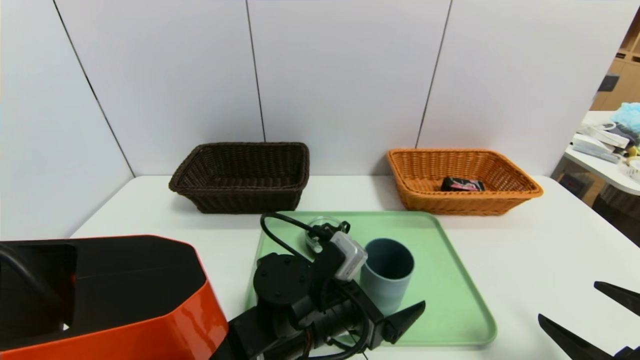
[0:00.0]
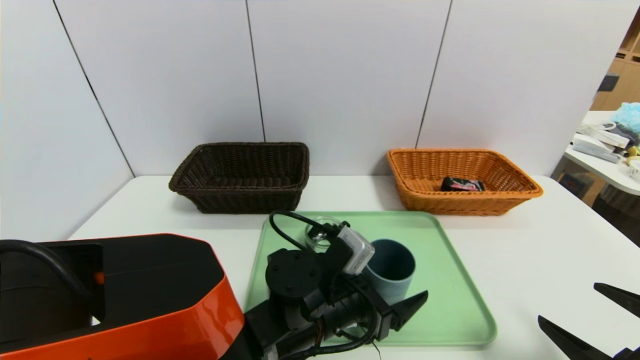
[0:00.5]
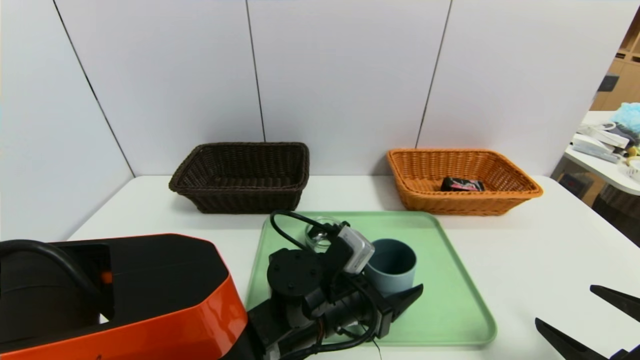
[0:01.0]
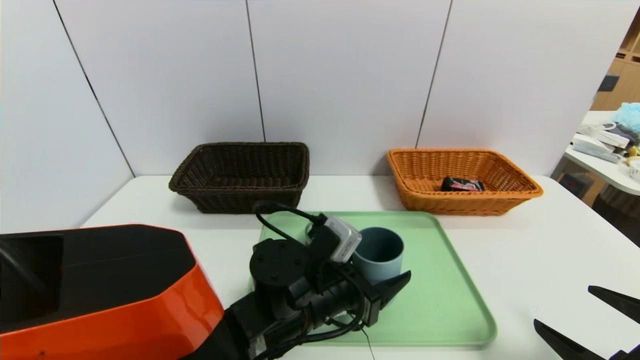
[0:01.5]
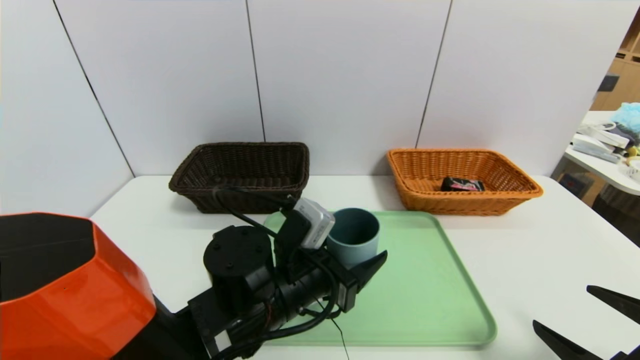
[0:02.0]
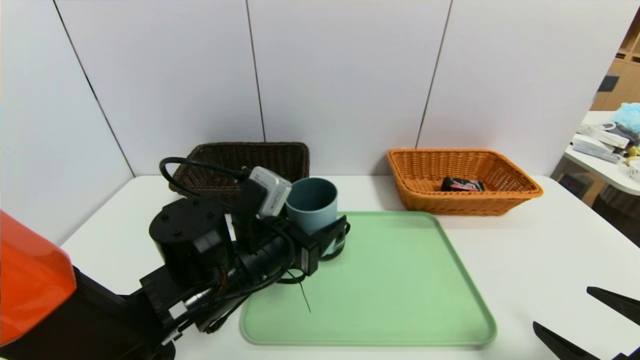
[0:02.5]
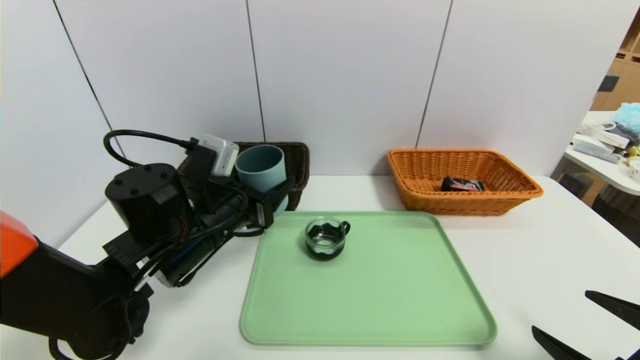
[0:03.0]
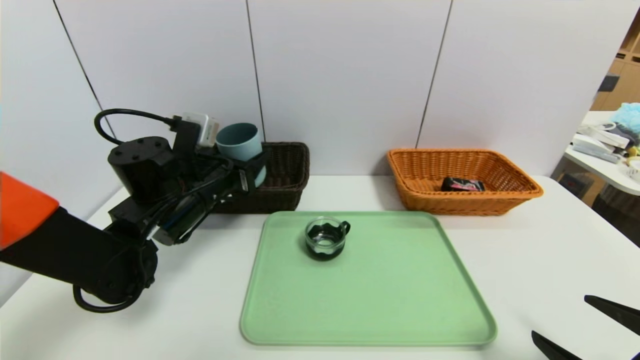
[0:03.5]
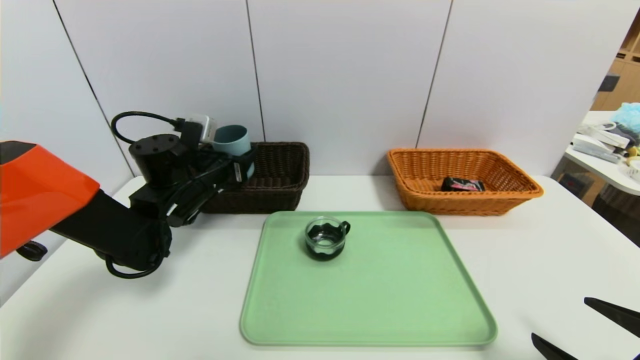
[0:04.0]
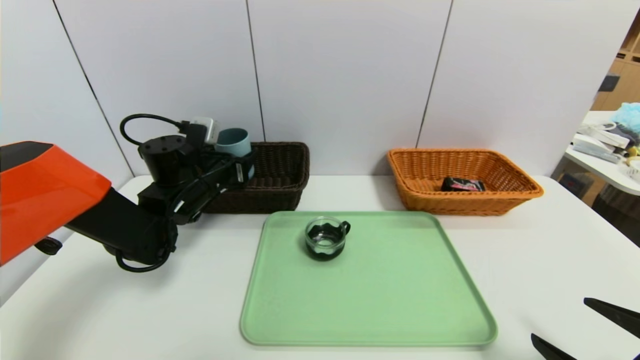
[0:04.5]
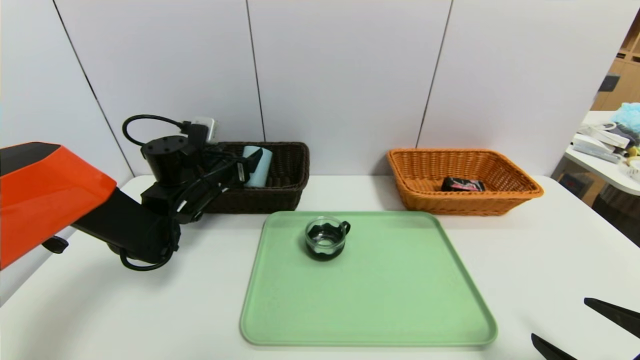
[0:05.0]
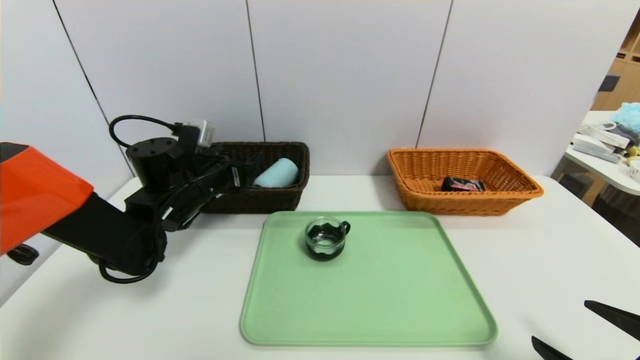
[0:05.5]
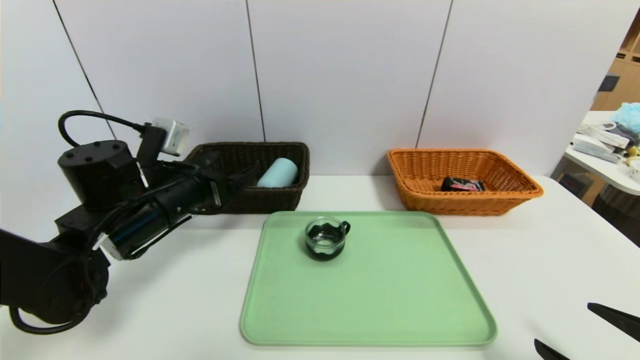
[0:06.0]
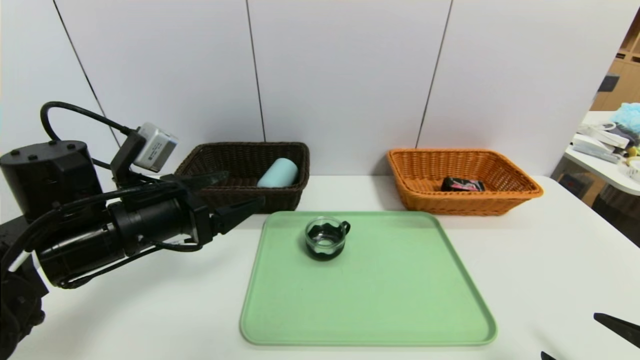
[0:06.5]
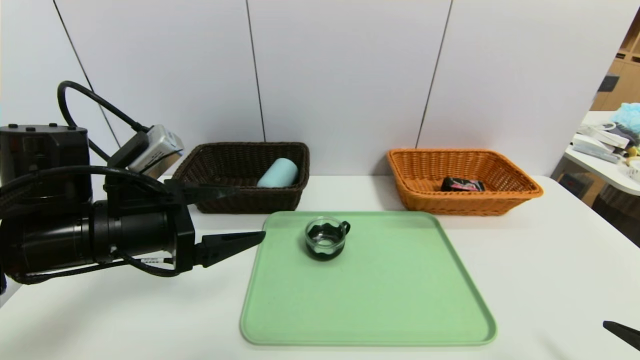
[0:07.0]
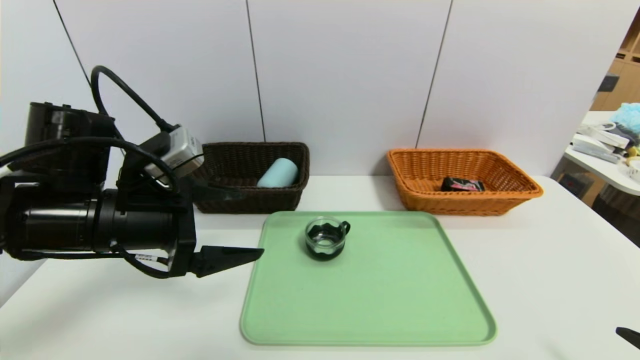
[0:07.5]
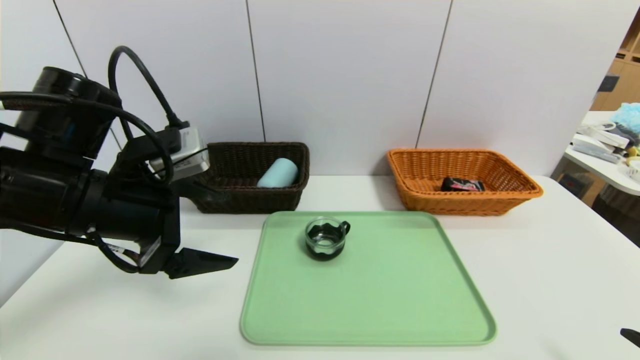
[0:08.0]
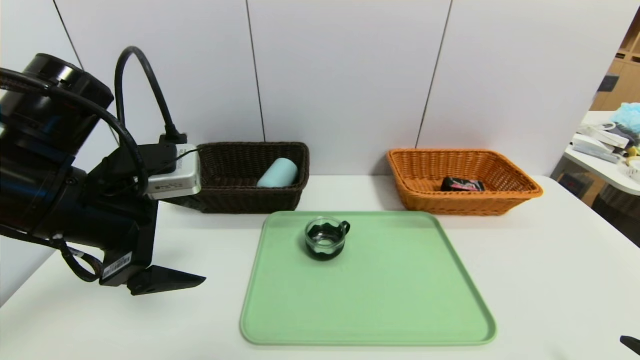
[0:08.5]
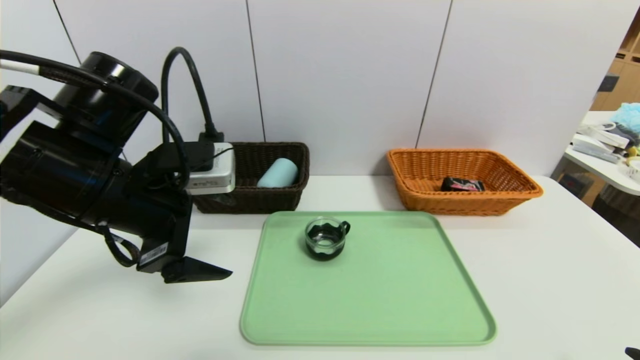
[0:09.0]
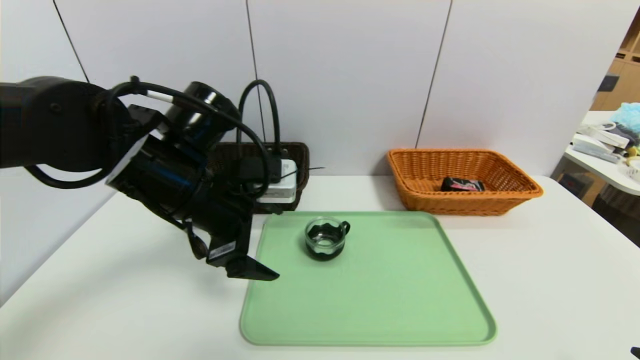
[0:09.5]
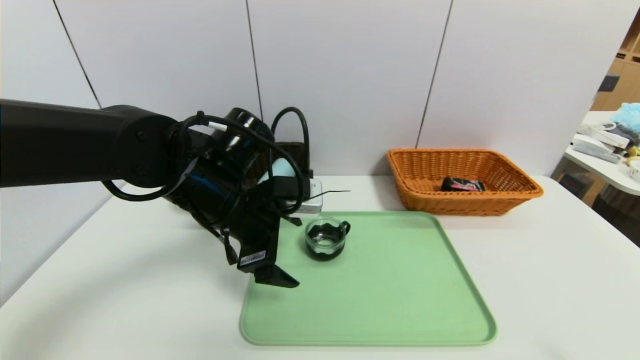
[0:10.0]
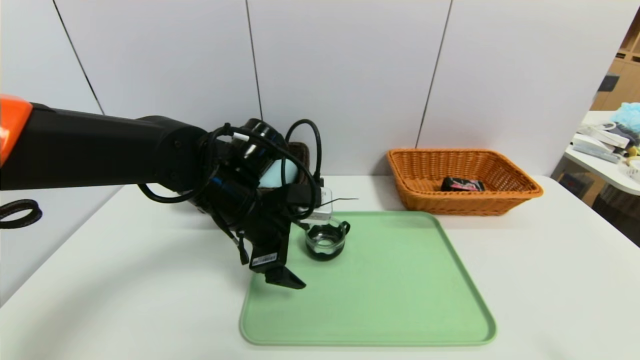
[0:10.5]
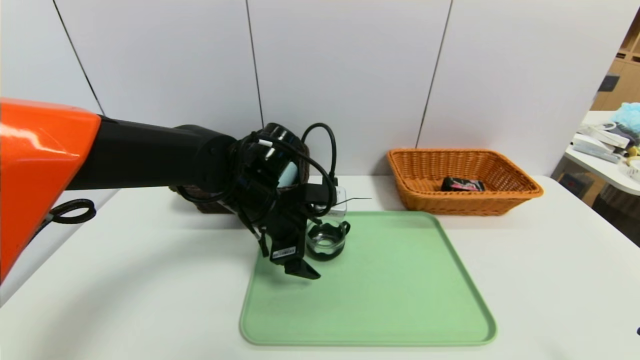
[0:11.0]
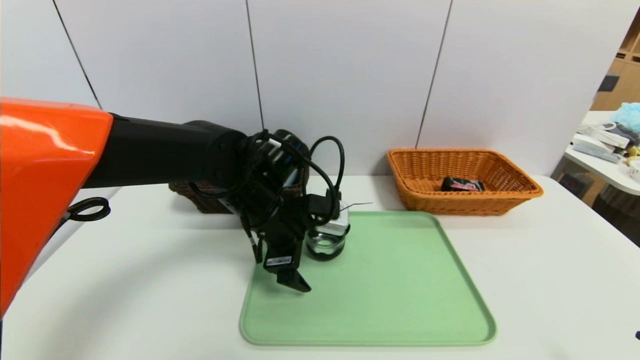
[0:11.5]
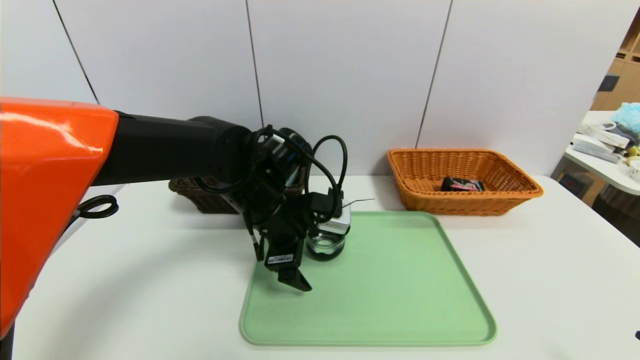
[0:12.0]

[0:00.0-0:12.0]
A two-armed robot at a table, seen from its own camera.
Task of the whole recording: place the food in the right basket with the right gripper, and place the non food items in the left basket with the left gripper.
Step, 0:00.0 to 0:05.0: Grasp the blue cup and put it in the left basket.
0:00.0 to 0:02.0: The left gripper ends up some 5 cm from where it was.
0:02.0 to 0:04.0: The left gripper goes roughly 20 cm forward and to the left.
0:04.0 to 0:06.0: The left gripper shifts about 10 cm backward.
0:06.0 to 0:08.0: The left gripper moves upward and backward, about 10 cm.
0:08.0 to 0:10.0: The left gripper goes approximately 10 cm to the right and forward.
0:10.0 to 0:12.0: The left gripper shifts by about 5 cm.

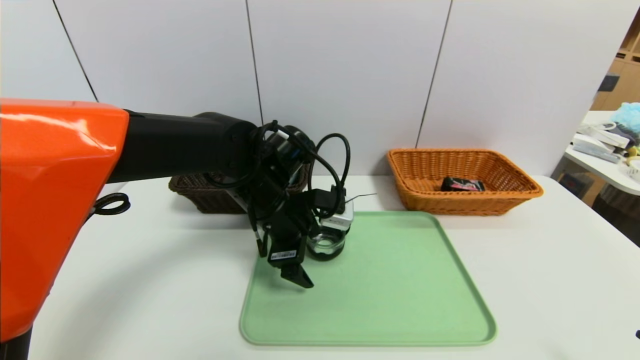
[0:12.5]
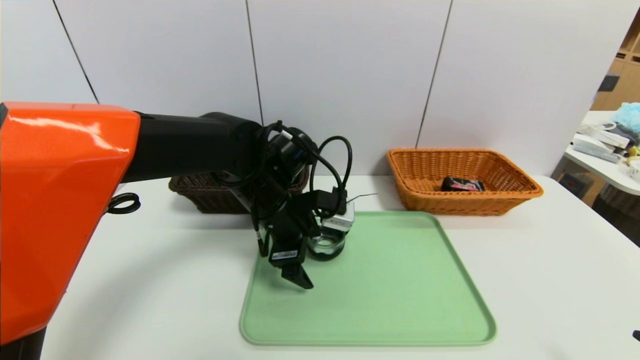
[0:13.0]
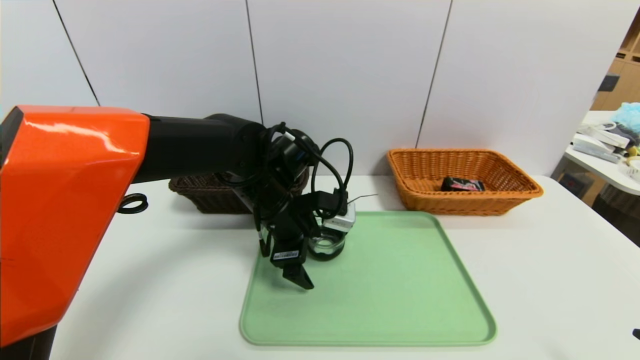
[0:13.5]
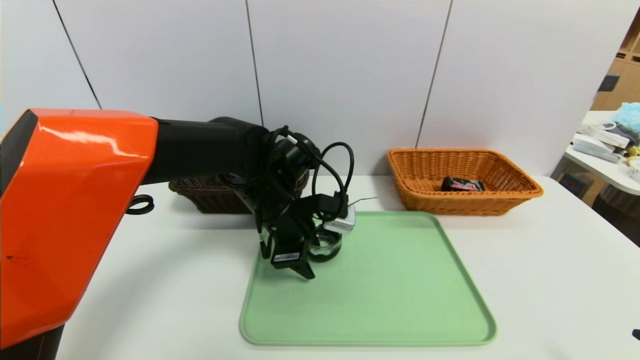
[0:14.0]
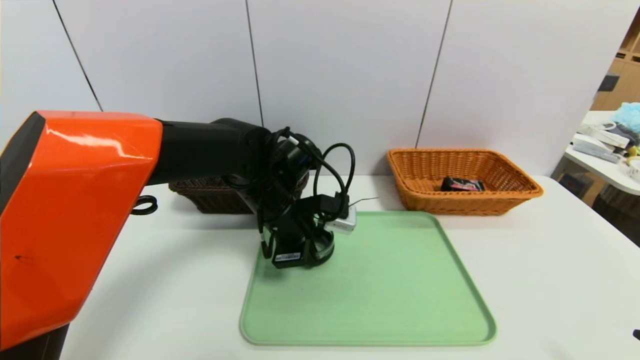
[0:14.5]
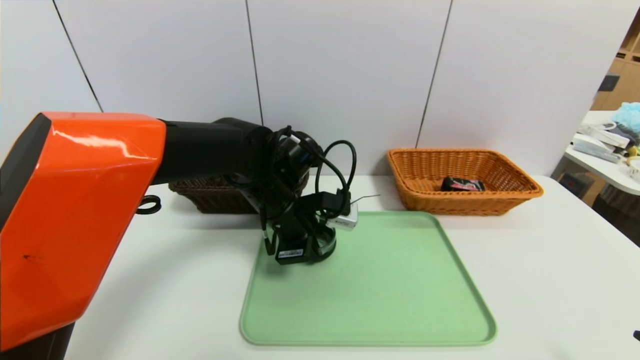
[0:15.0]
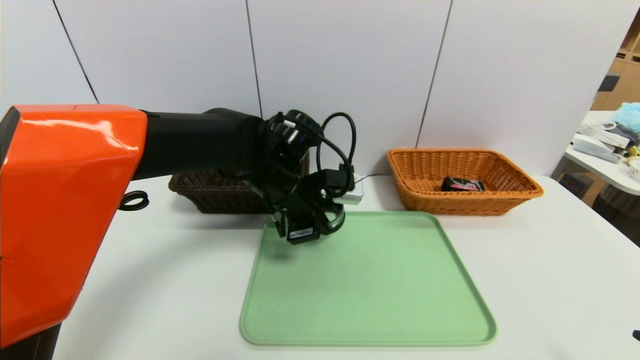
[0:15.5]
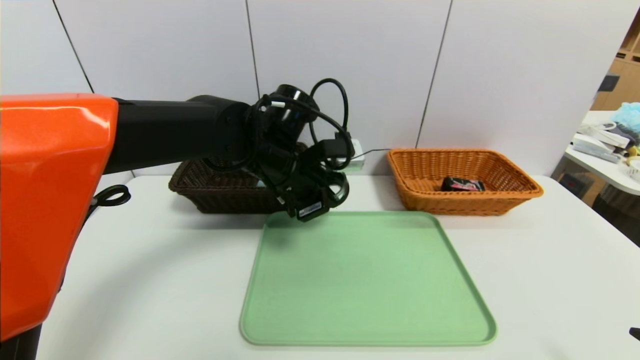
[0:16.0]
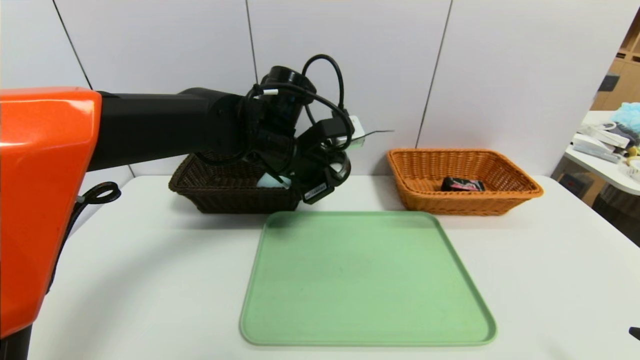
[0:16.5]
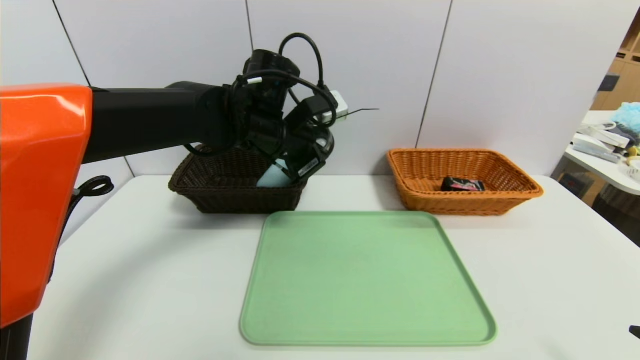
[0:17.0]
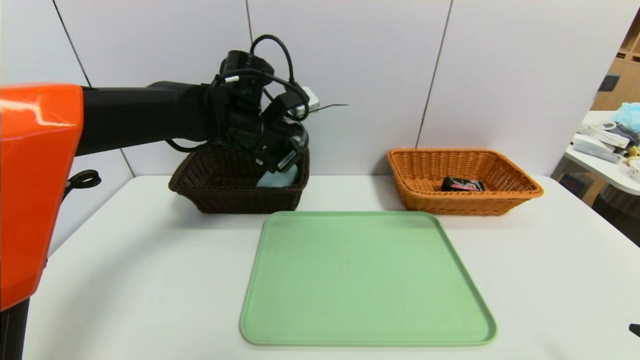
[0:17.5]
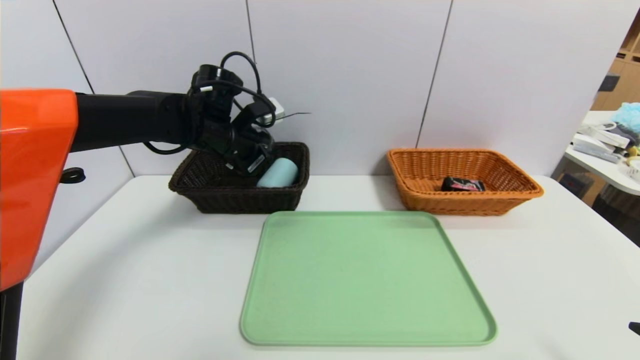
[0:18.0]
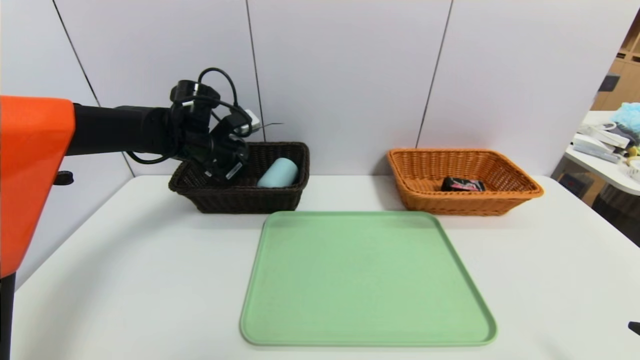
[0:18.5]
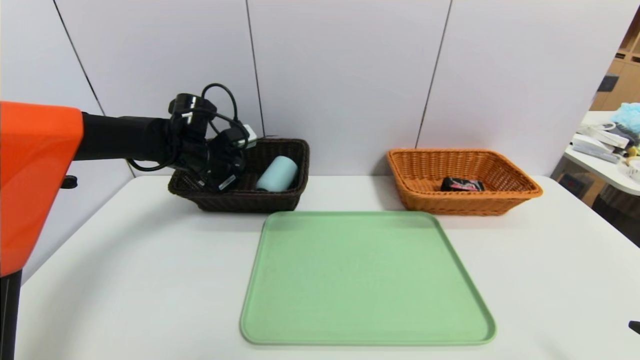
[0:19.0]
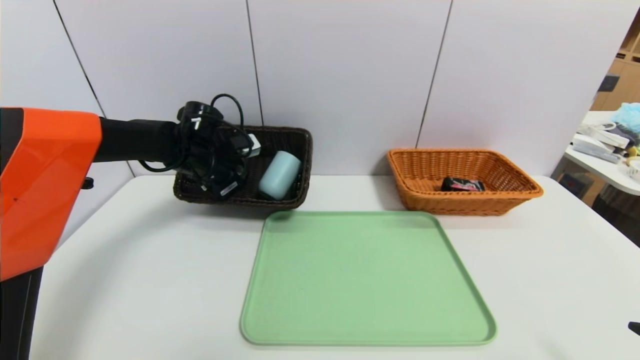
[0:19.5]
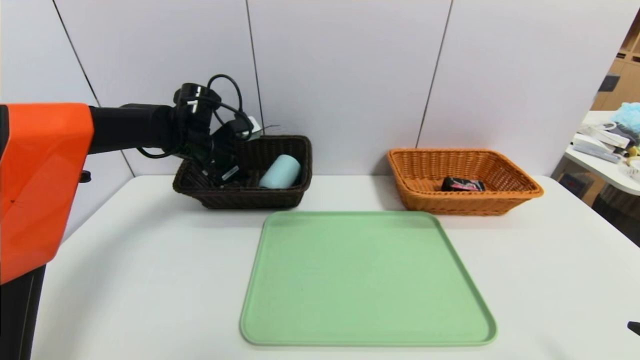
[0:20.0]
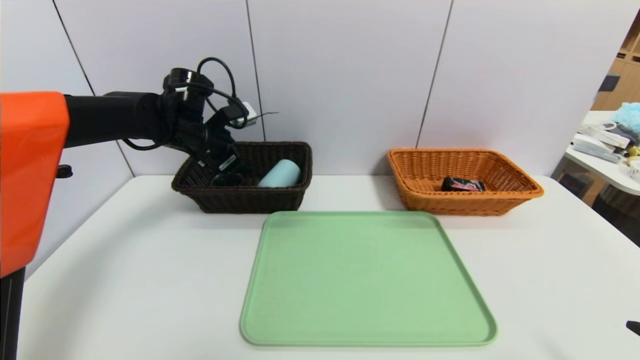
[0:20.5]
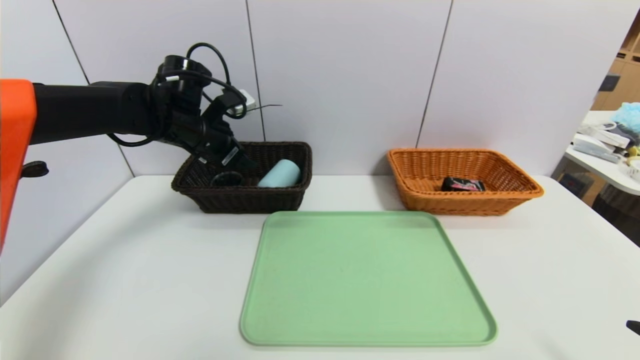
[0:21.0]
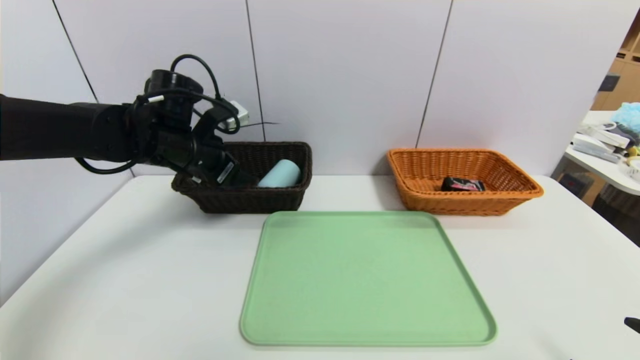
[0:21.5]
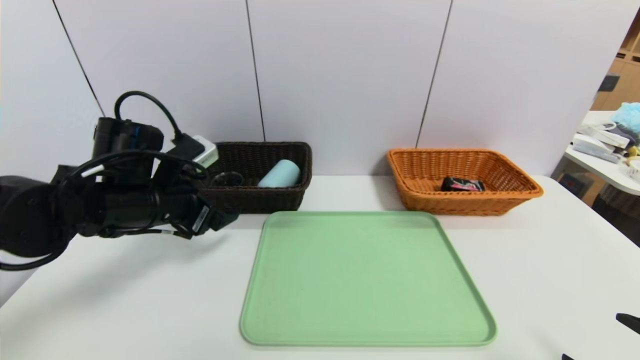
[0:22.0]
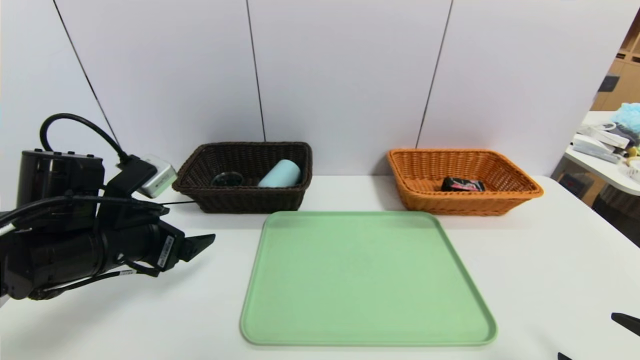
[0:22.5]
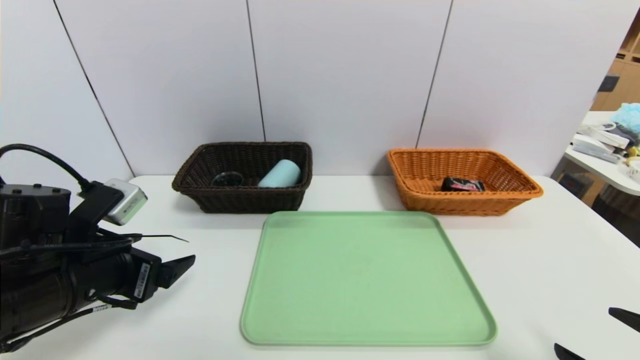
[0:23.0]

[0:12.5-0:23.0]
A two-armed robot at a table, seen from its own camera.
Task of the whole recording: place the food in the right basket with the right gripper, and place the non food items in the left basket with the left gripper.
Step, 0:12.5 to 0:19.5: Grasp the tea cup and put it in the left basket.
0:12.5 to 0:14.5: The left gripper closes its fingers.
0:14.5 to 0:16.5: The left gripper moves upward, roughly 5 cm.
0:16.5 to 0:19.0: The left gripper shifts approximately 20 cm to the left and forward.
0:19.0 to 0:21.0: The left gripper heads upward, covering some 5 cm, and opens.
0:21.0 to 0:23.0: The left gripper goes approximately 25 cm backward.
